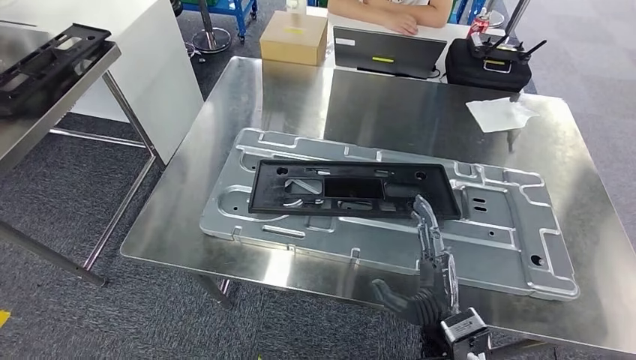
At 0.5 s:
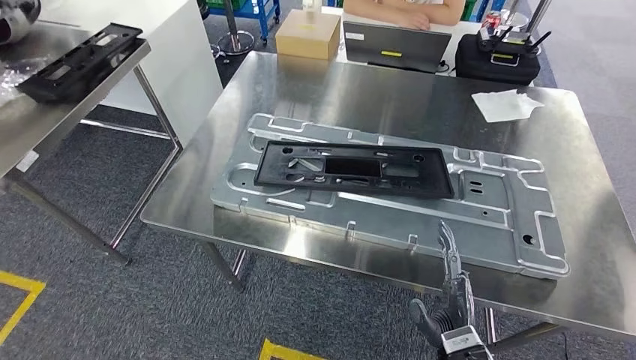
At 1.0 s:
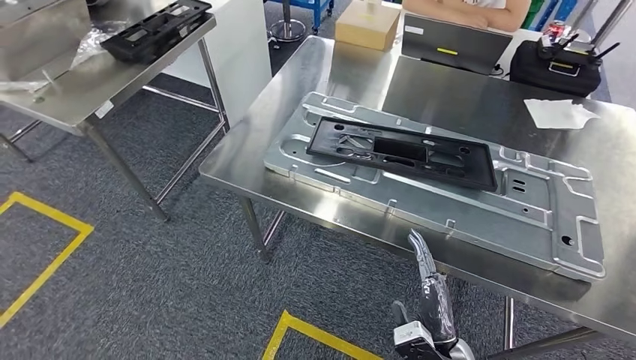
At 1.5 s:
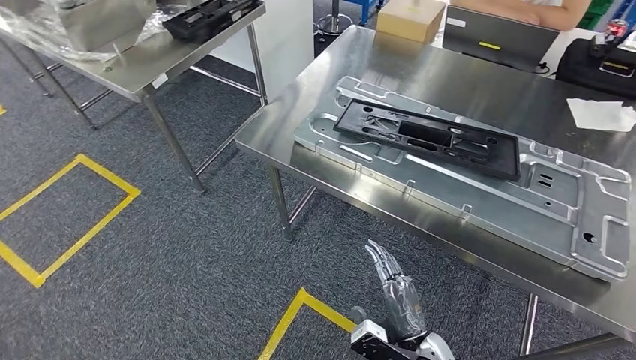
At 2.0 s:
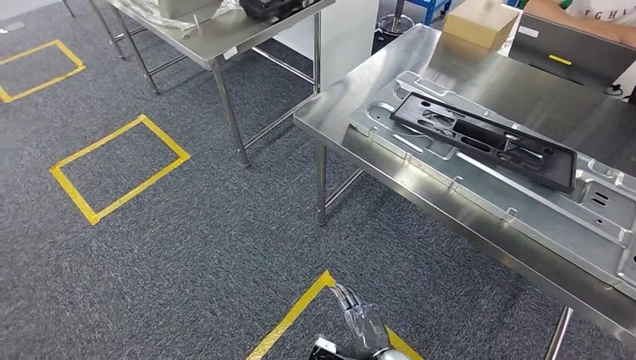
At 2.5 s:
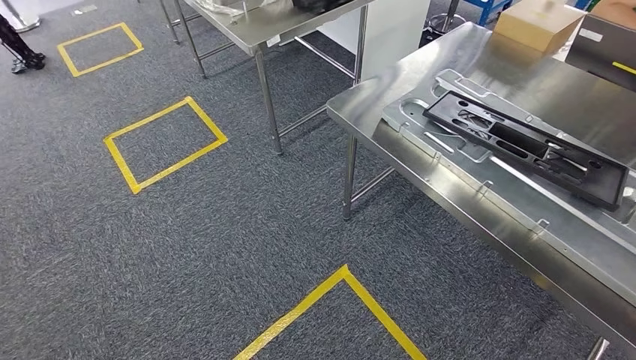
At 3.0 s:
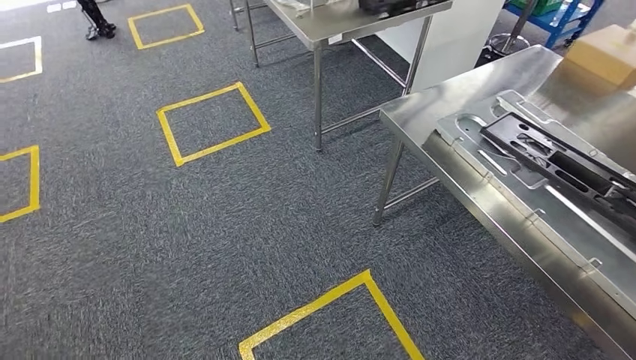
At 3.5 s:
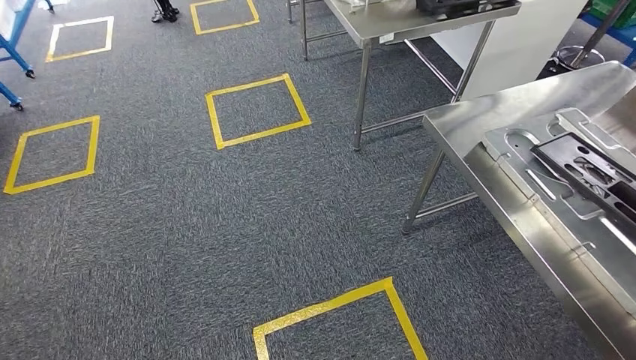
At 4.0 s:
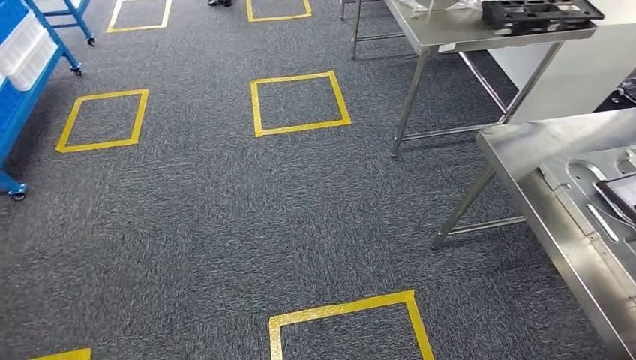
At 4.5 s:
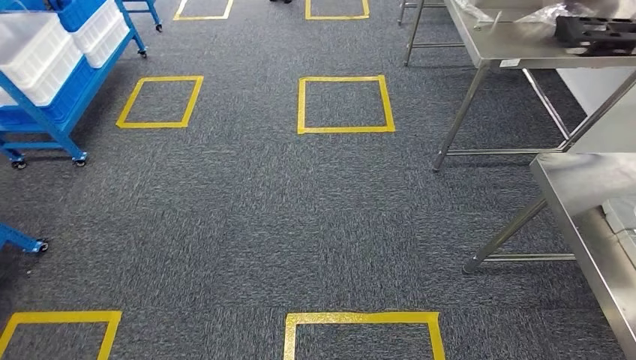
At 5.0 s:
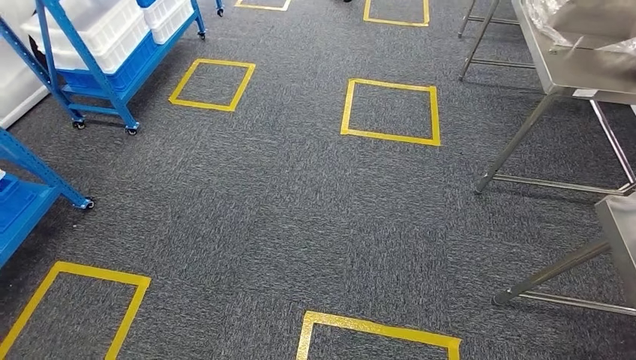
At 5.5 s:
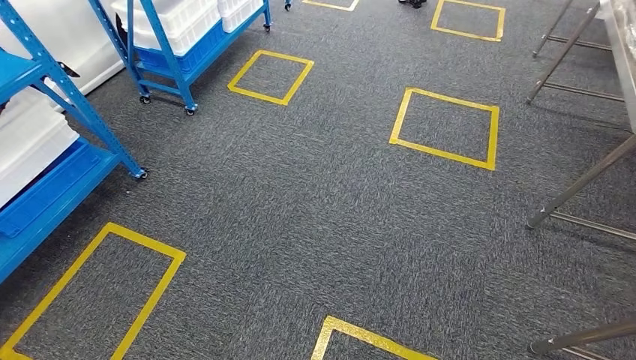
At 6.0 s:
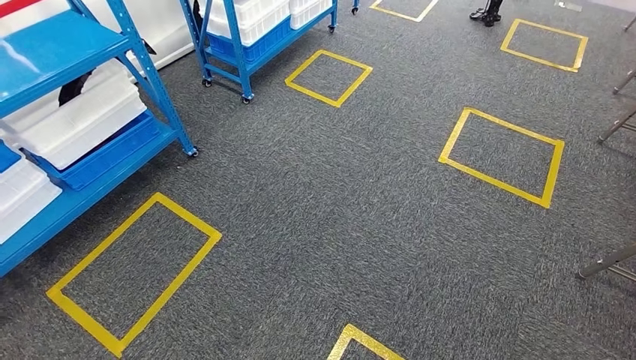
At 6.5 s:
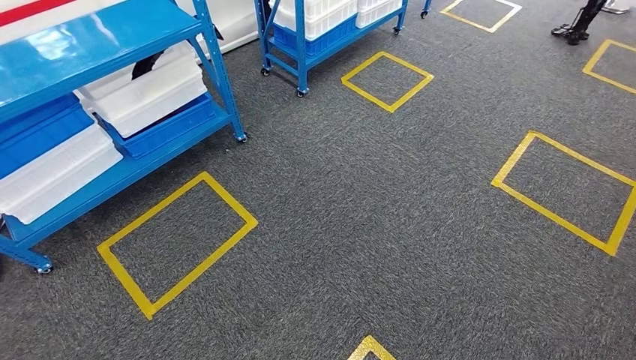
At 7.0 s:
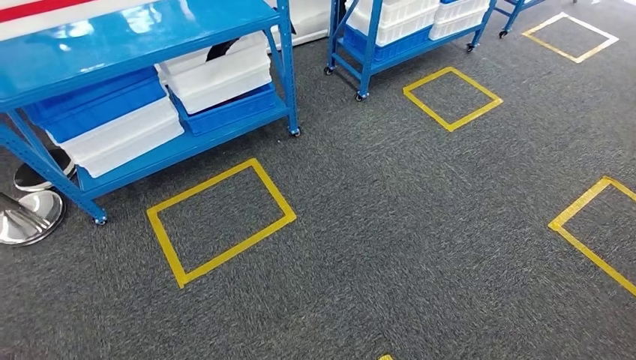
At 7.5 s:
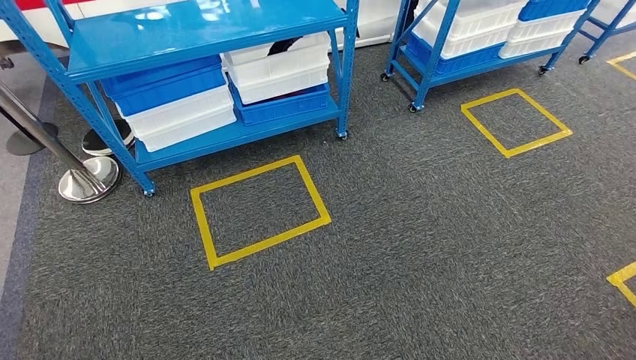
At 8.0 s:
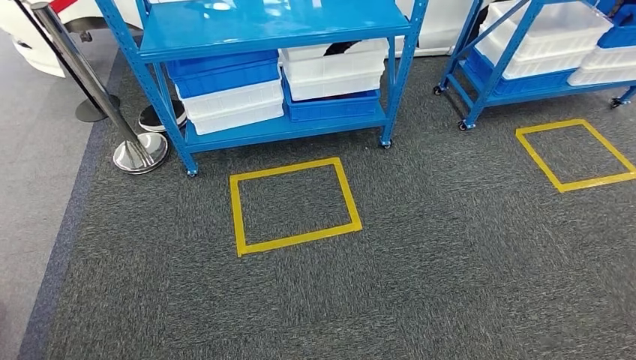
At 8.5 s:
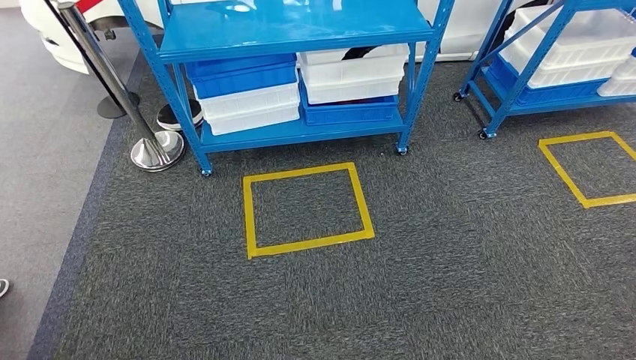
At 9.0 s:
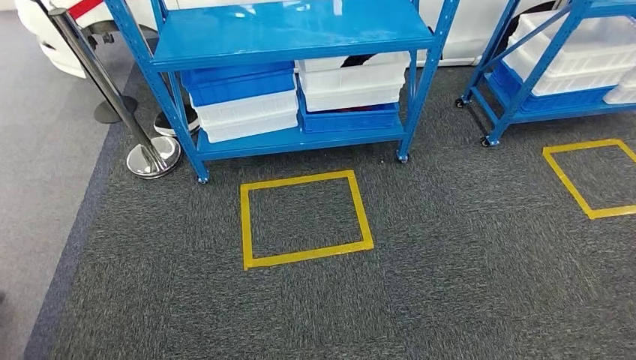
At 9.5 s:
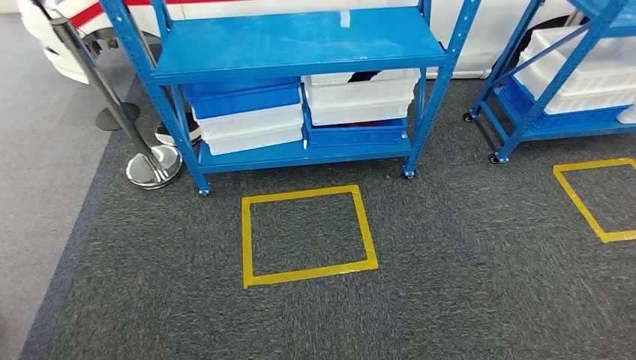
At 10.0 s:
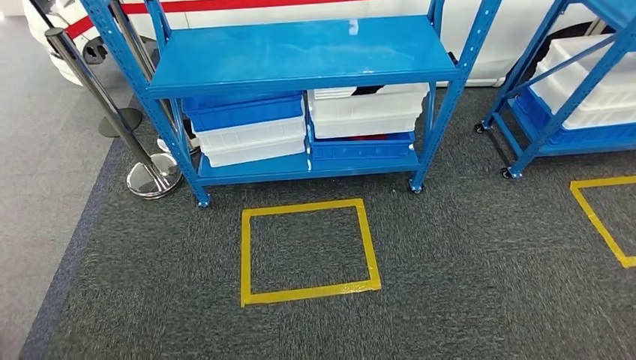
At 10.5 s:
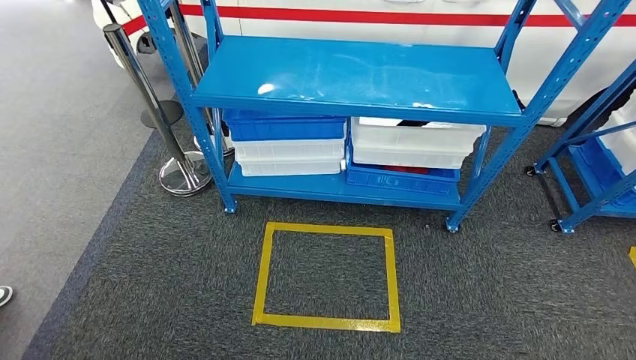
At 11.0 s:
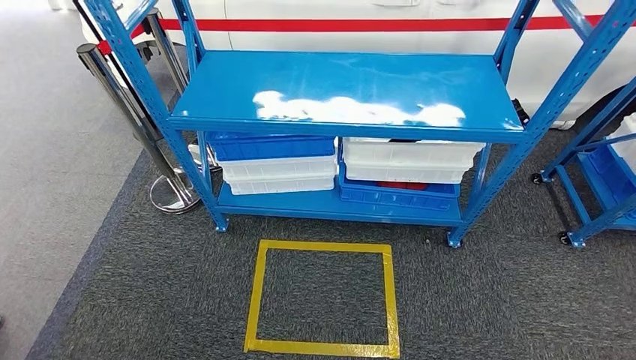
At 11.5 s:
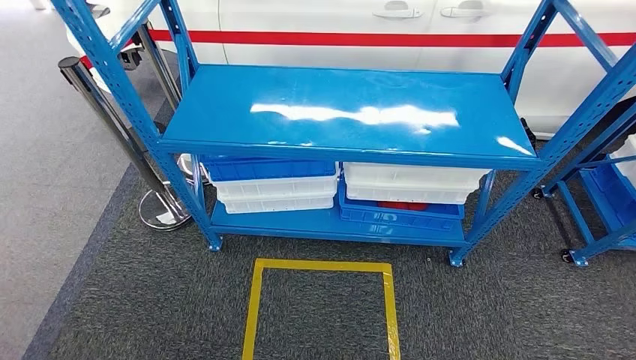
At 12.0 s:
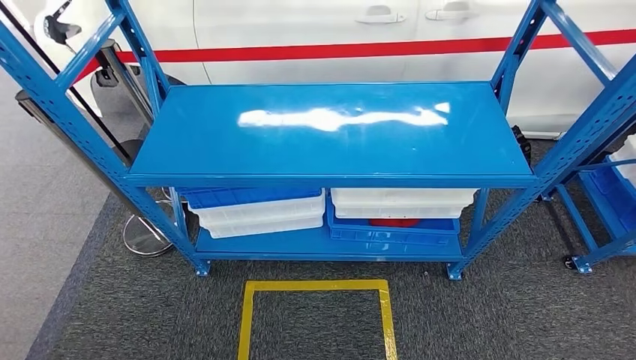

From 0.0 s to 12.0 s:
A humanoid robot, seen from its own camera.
Step, from 3.0 s to 12.0 s: Move to the initial position of the shelf.
